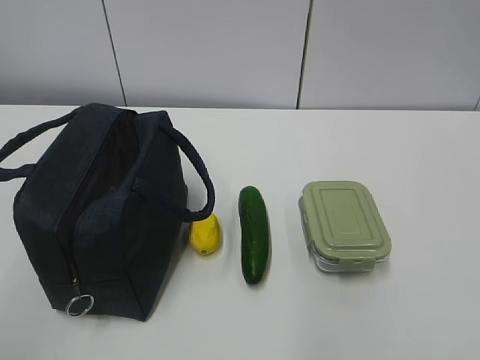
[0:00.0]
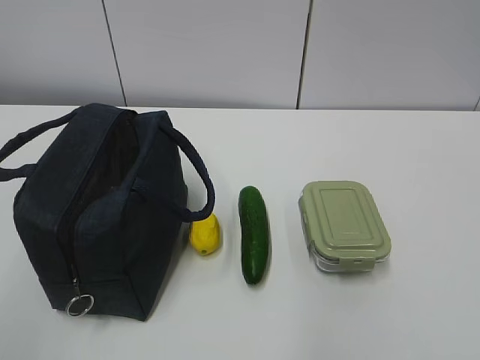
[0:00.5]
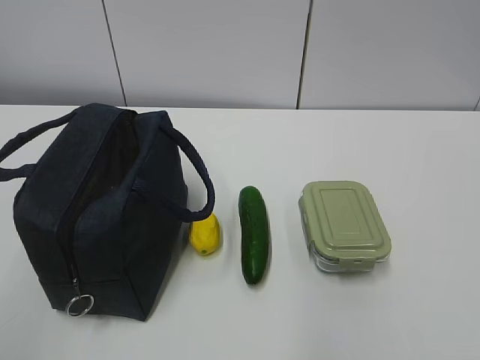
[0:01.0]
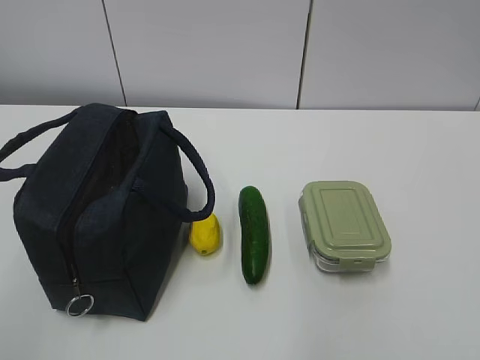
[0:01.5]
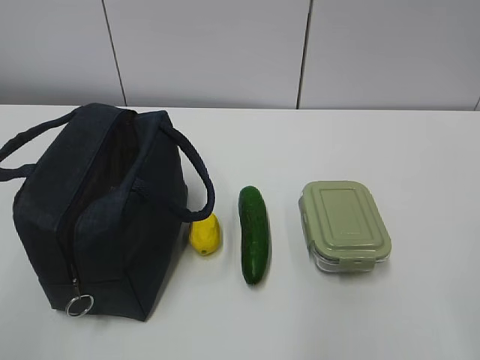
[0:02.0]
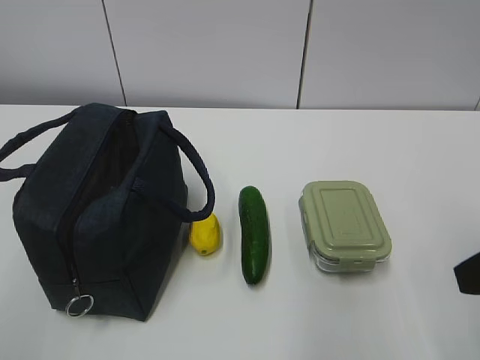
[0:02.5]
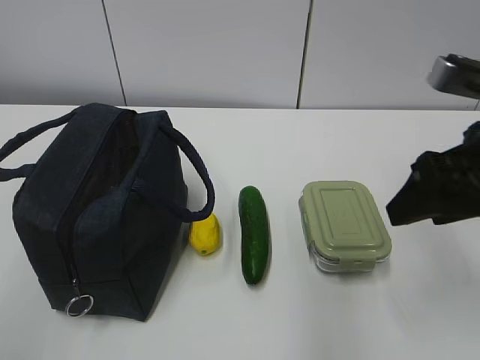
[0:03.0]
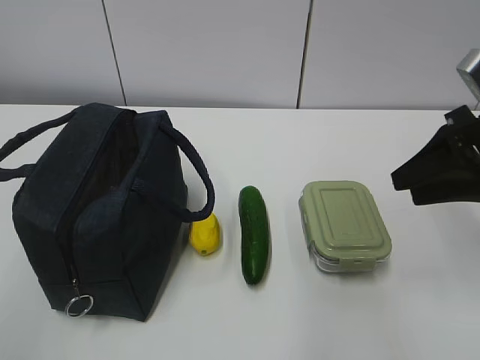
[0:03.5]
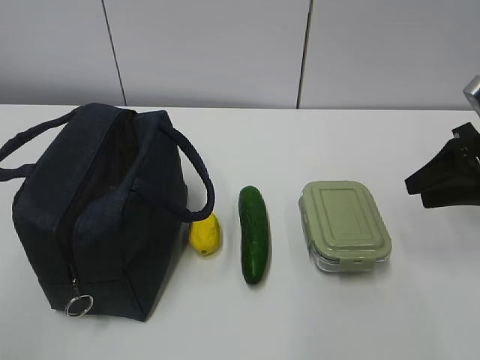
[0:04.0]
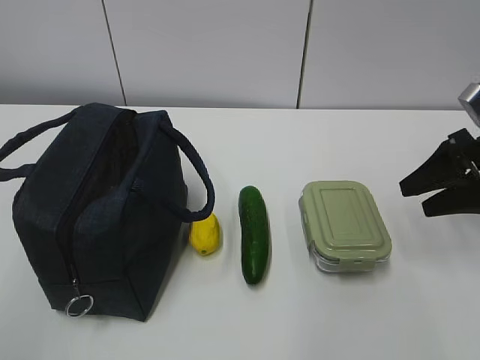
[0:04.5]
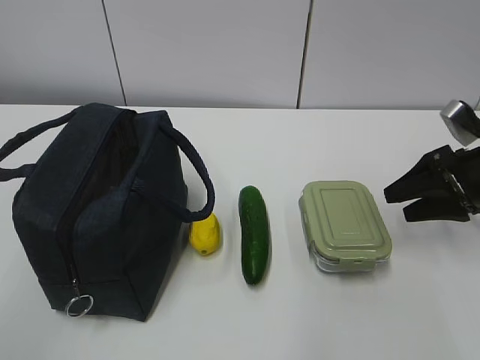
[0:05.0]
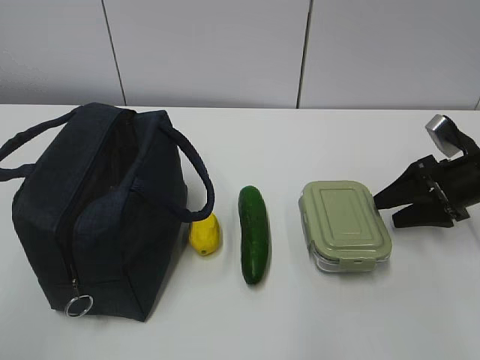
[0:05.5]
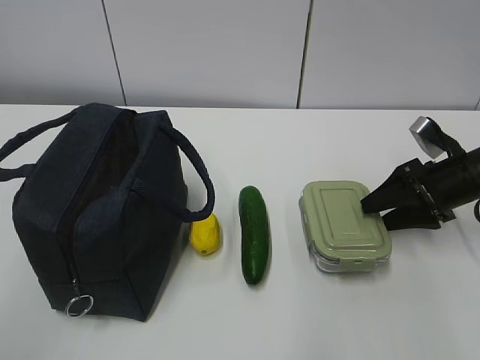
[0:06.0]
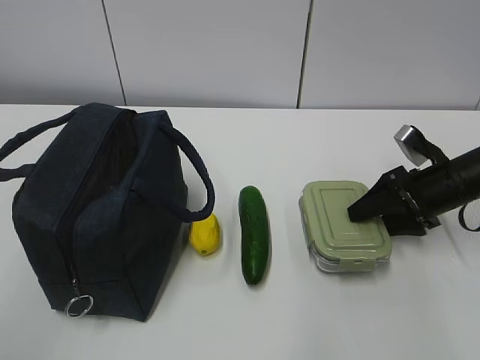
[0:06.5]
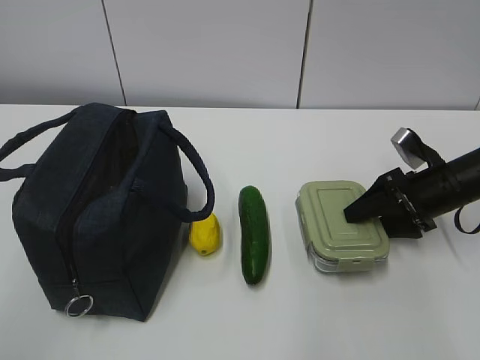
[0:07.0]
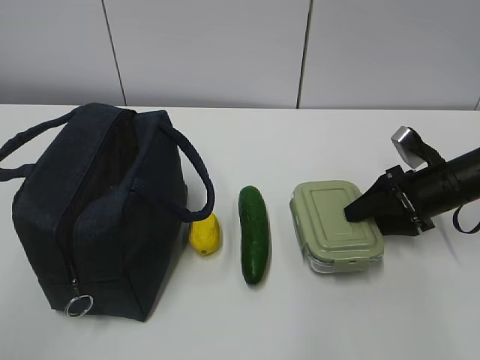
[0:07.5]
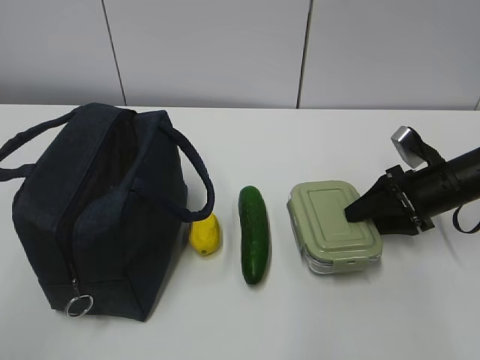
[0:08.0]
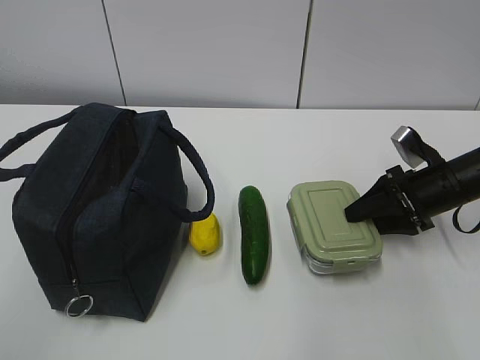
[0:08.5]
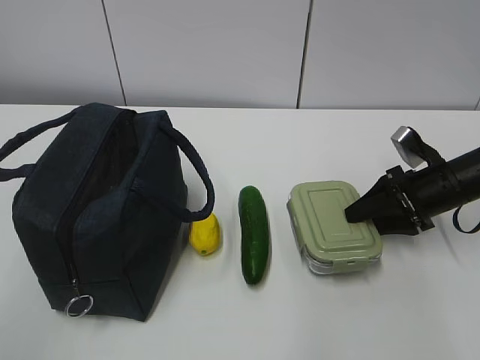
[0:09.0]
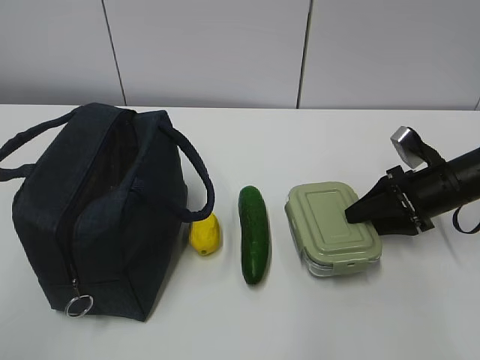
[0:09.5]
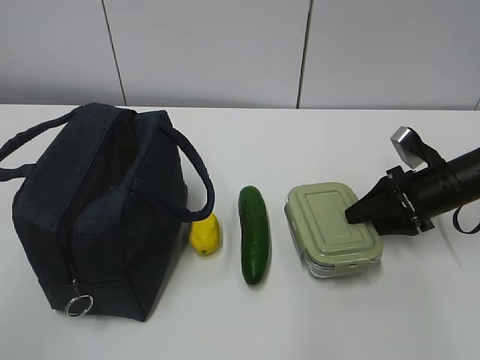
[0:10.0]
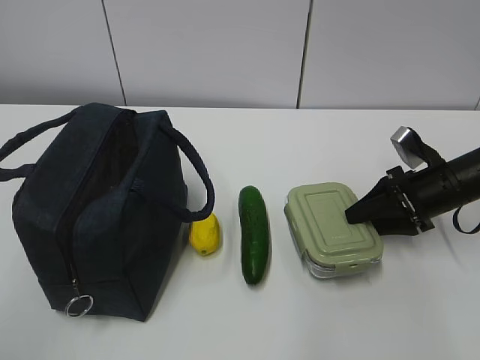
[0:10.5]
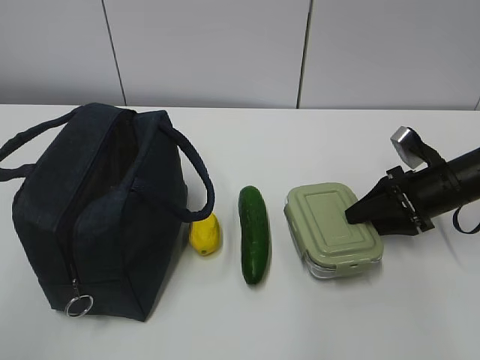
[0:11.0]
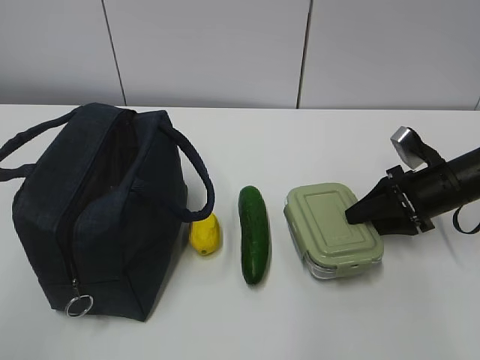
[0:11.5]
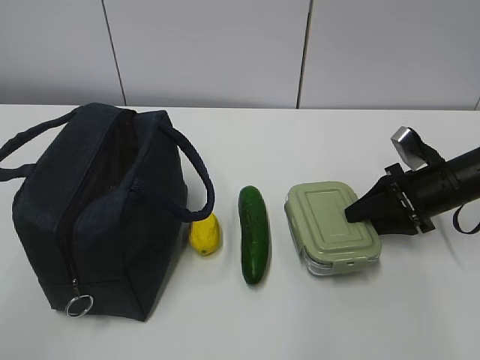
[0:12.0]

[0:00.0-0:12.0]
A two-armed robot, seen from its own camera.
Step, 0:00.0 to 0:10.5: Grab the lunch box with your right hand.
0:02.0 to 0:04.0: The right gripper is displaced forward by roughly 25 cm.
0:04.0 to 0:06.0: The right gripper heads downward, covering some 10 cm.
0:06.0 to 0:08.0: There are only small adjustments of the grippers.
0:08.0 to 0:12.0: Both grippers stay about where they are.

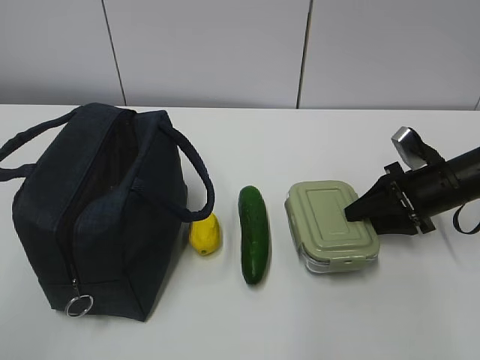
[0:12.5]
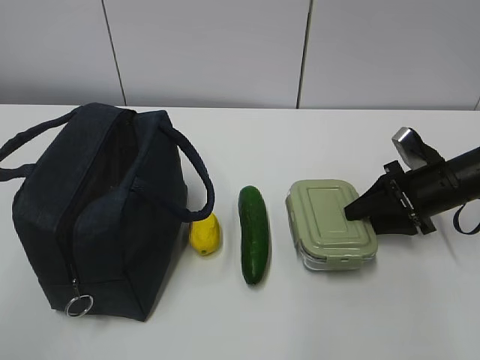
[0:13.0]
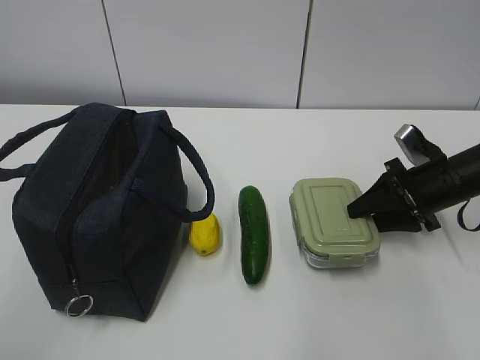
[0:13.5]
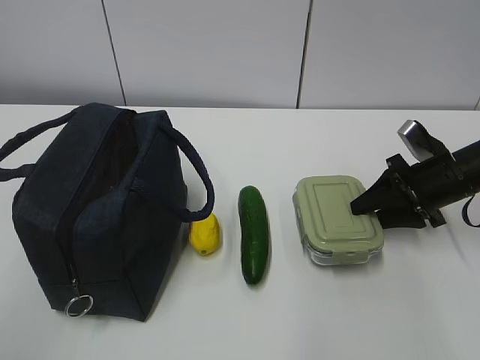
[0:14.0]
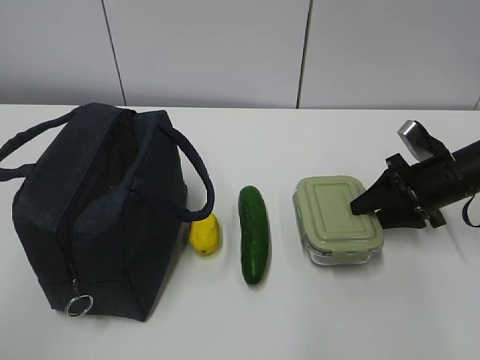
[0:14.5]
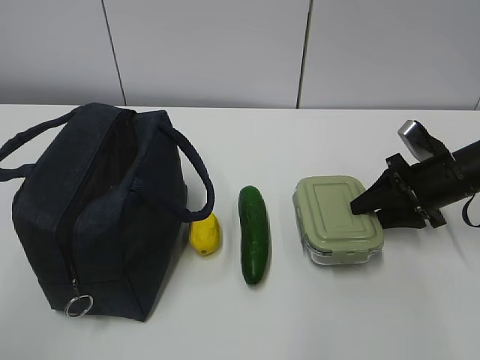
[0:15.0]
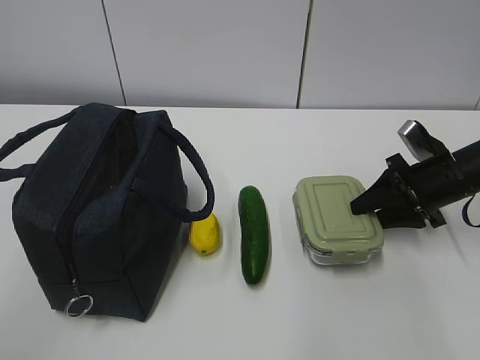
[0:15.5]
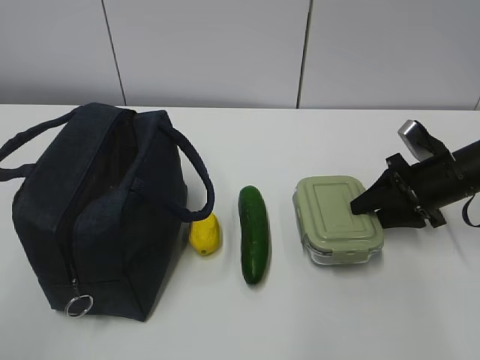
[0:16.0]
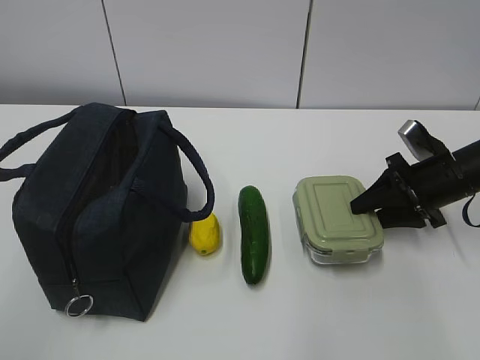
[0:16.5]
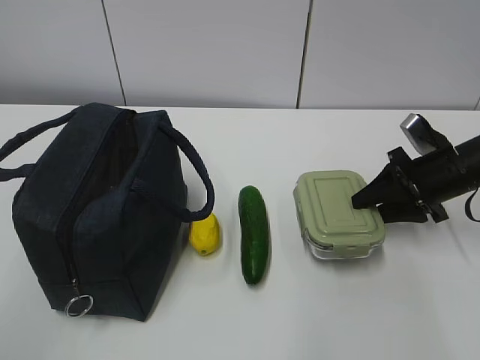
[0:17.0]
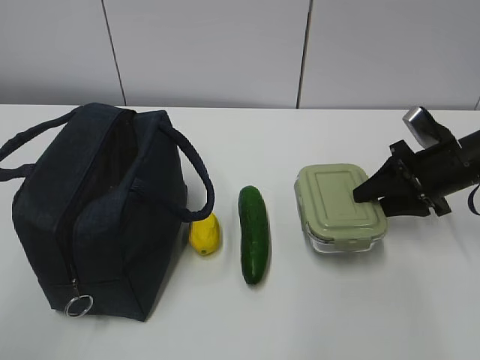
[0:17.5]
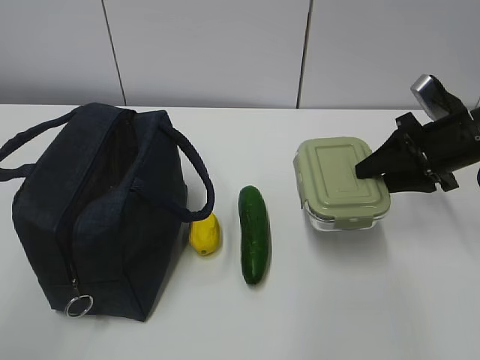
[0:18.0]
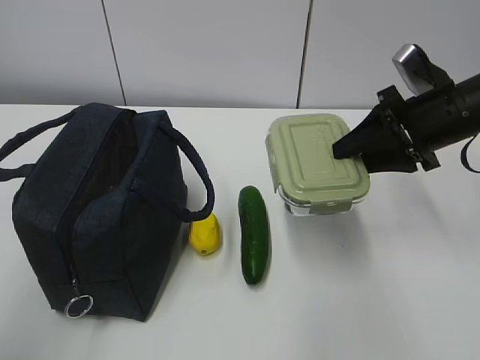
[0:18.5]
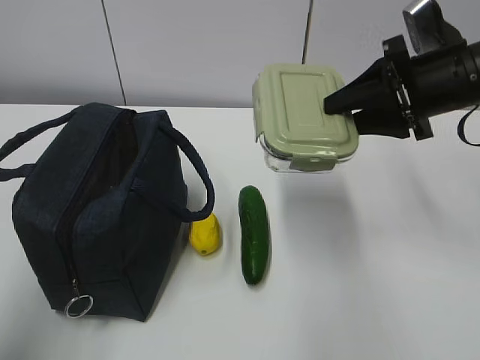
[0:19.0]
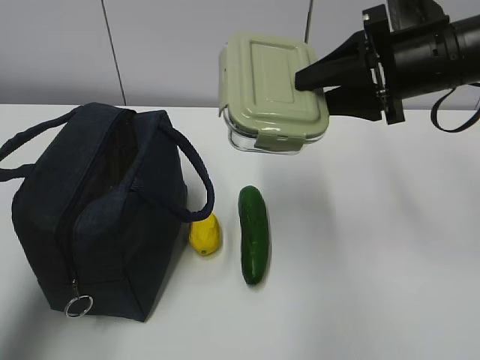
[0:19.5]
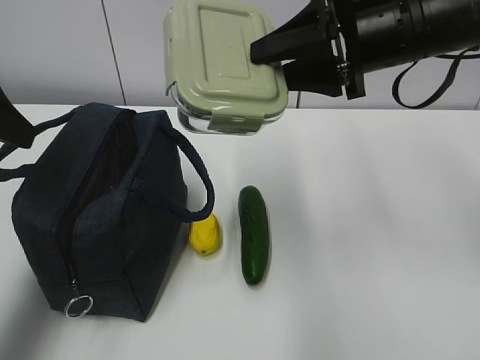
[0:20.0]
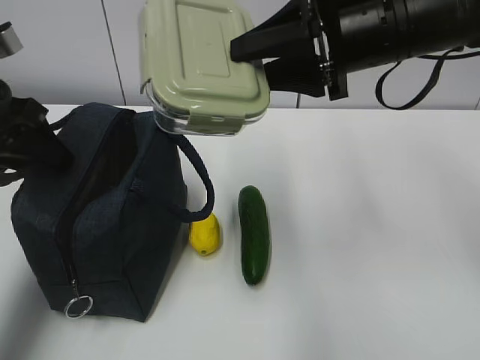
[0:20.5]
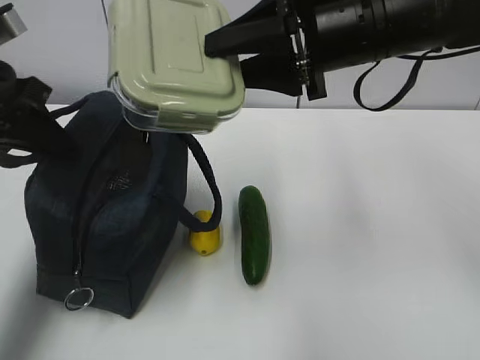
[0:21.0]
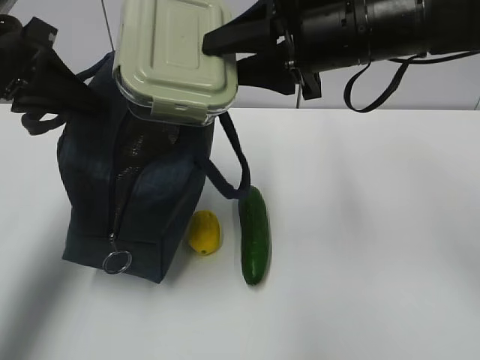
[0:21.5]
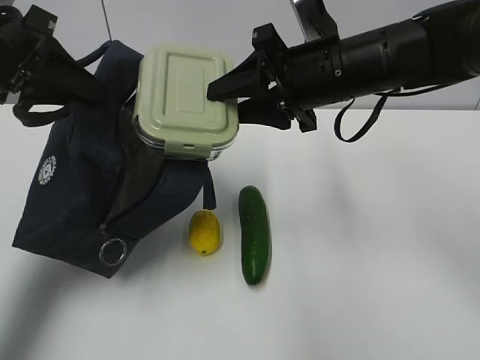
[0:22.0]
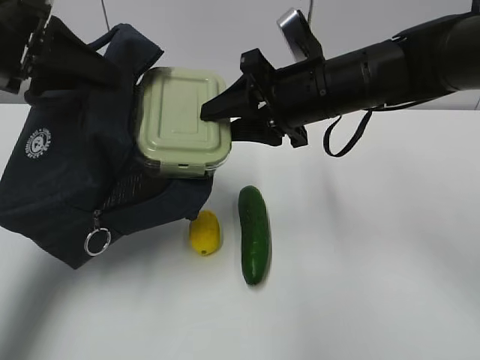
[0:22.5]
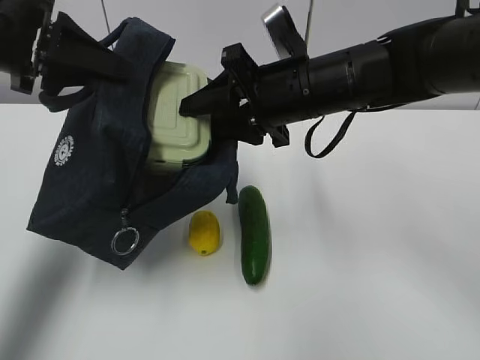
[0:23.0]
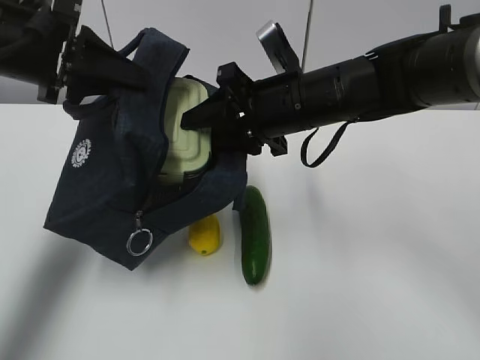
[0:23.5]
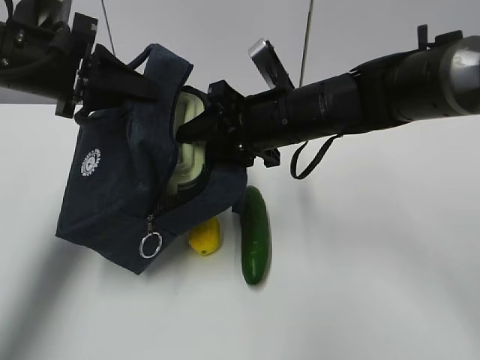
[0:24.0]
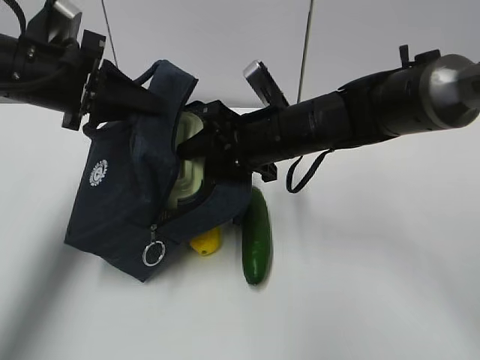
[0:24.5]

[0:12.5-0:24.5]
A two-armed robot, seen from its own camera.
Step, 0:18.0 to 0:23.0: Place it into the bag with your right hand.
0:12.5 to 0:14.5: There are only small adjustments of the grippers.
0:14.5 to 0:16.5: Both grippers stay about where they are.
0:16.5 to 0:18.5: The right gripper travels upward by roughly 10 cm. The left gripper ends up roughly 5 cm from where it was.
0:18.5 to 0:20.5: The left gripper heads forward, covering about 25 cm. The right gripper shifts some 15 cm to the left and upward.
0:20.5 to 0:22.5: The right gripper goes about 5 cm downward. Meanwhile the left gripper moves upward, roughly 5 cm, and closes its fingers.
0:22.5 to 0:24.5: Both grippers move downward, about 5 cm.

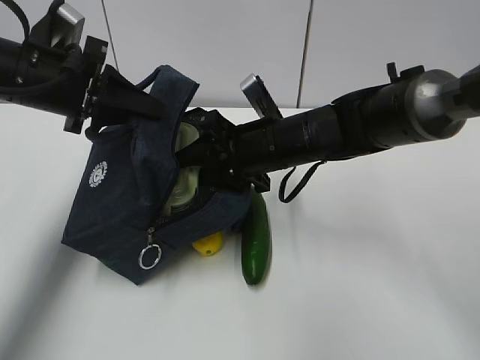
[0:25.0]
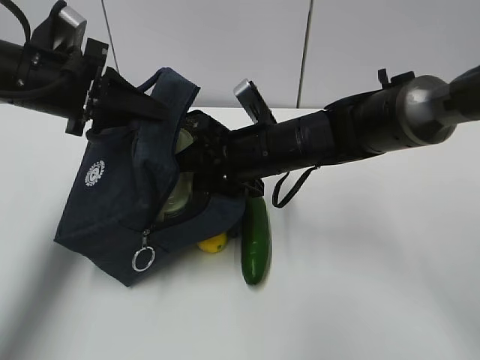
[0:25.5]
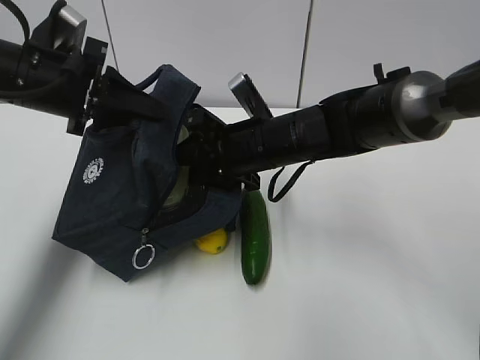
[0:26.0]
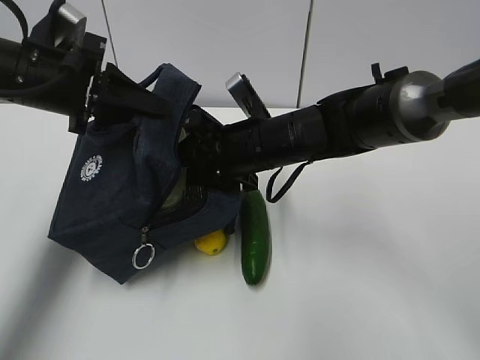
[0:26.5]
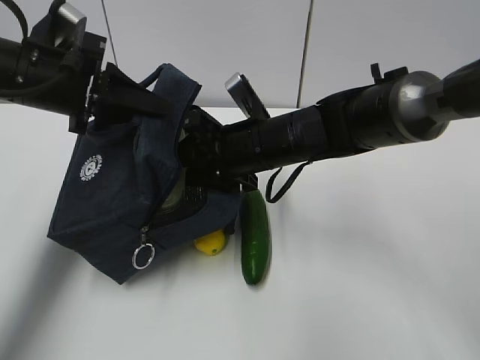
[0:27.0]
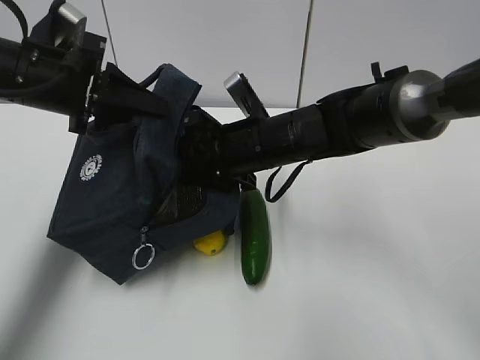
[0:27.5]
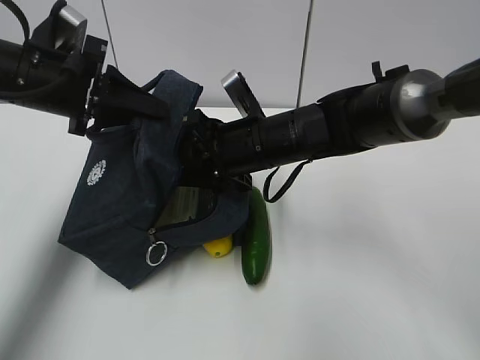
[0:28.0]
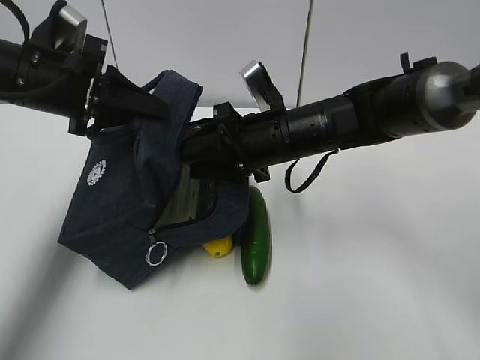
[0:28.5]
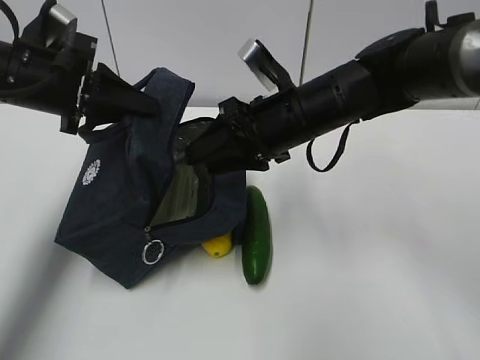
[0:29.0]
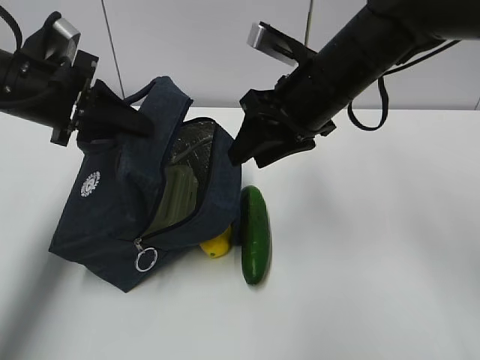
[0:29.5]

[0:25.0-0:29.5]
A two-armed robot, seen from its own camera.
Step, 0:25.0 to 0:28.5: Grab the cucumber with your right hand.
0:25.0 to 0:27.0: The grippers make only small movements.
0:27.0 to 0:29.5: The right gripper heads upward and to the right, covering roughly 10 cm.
